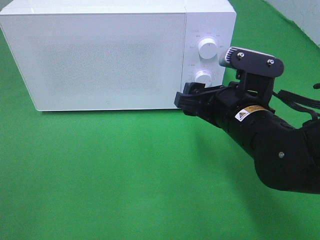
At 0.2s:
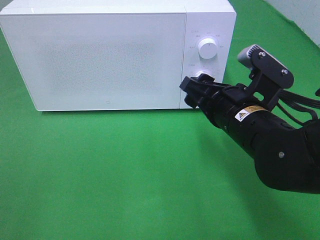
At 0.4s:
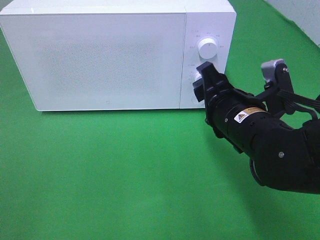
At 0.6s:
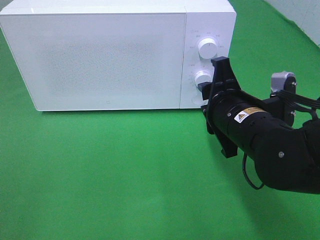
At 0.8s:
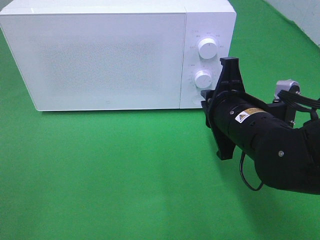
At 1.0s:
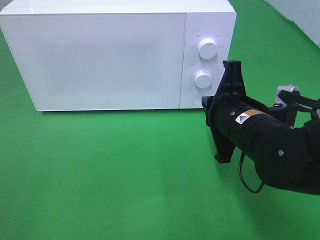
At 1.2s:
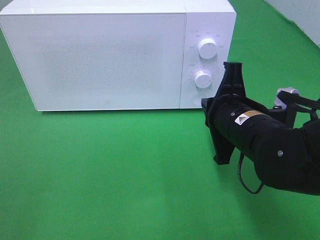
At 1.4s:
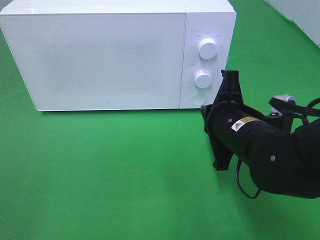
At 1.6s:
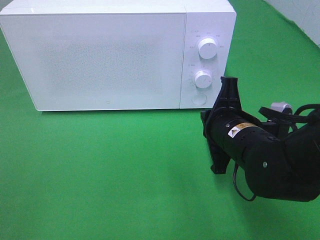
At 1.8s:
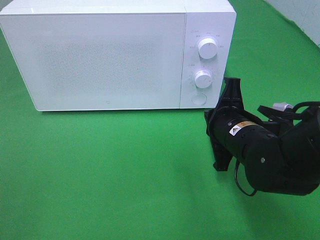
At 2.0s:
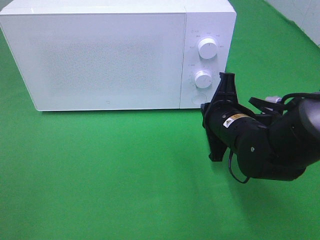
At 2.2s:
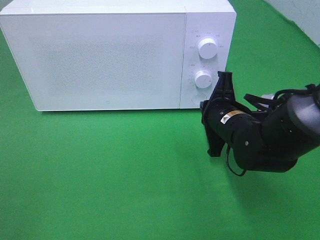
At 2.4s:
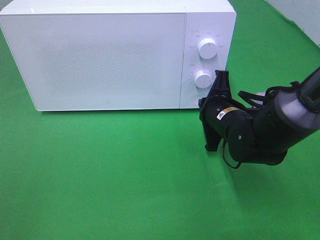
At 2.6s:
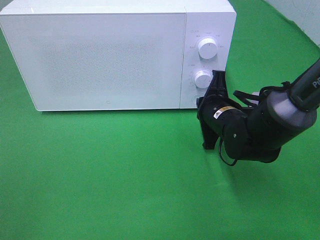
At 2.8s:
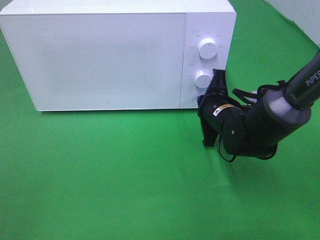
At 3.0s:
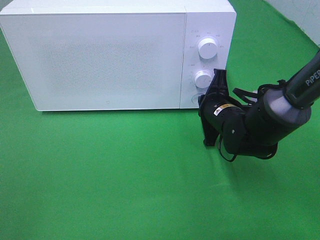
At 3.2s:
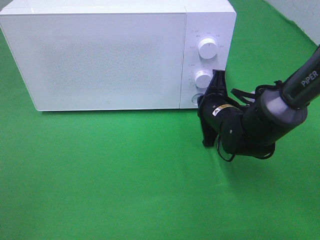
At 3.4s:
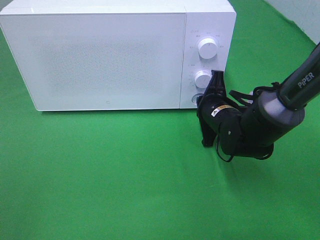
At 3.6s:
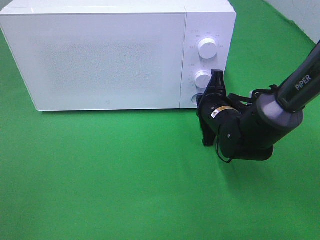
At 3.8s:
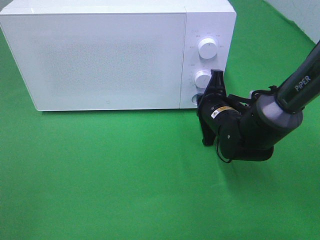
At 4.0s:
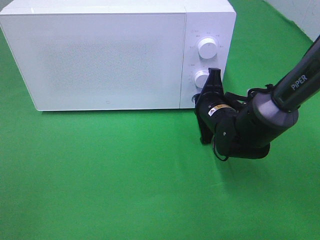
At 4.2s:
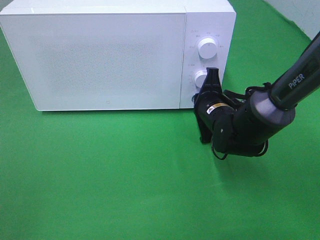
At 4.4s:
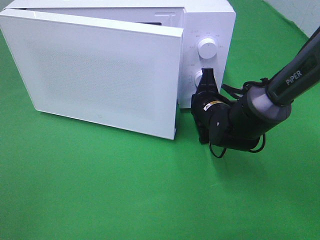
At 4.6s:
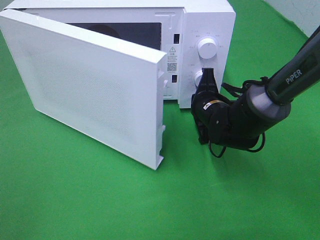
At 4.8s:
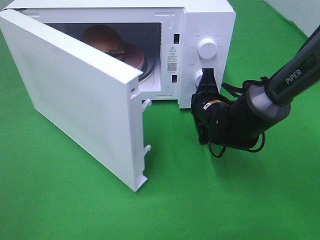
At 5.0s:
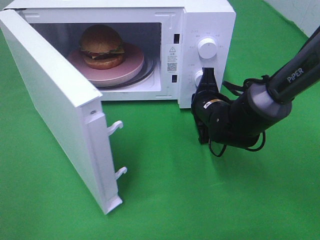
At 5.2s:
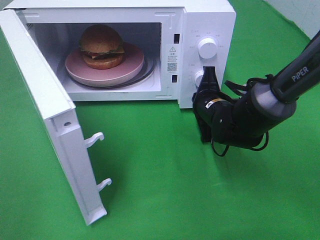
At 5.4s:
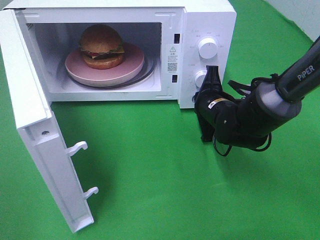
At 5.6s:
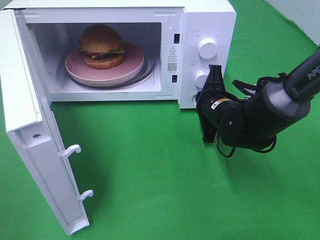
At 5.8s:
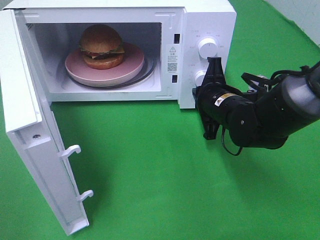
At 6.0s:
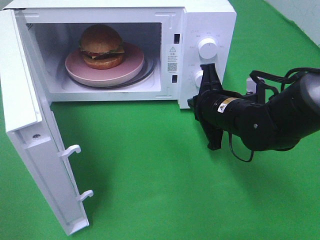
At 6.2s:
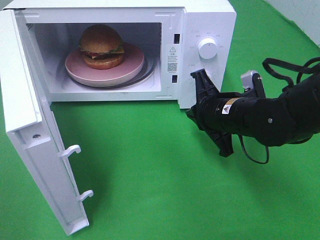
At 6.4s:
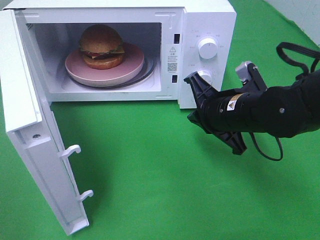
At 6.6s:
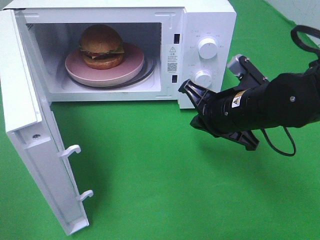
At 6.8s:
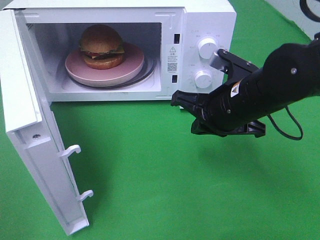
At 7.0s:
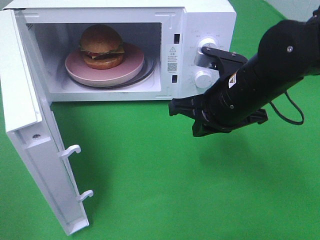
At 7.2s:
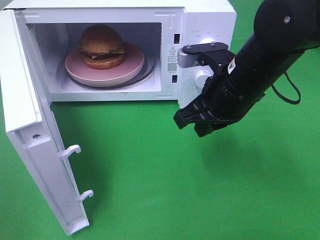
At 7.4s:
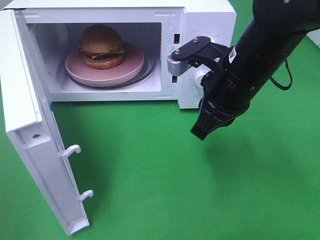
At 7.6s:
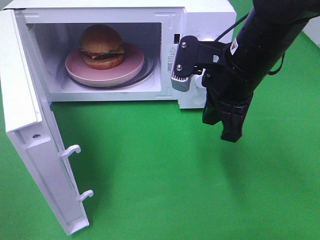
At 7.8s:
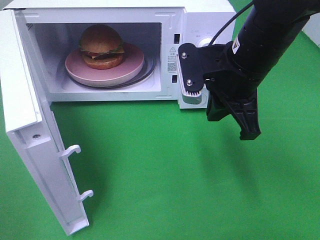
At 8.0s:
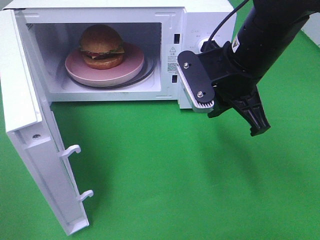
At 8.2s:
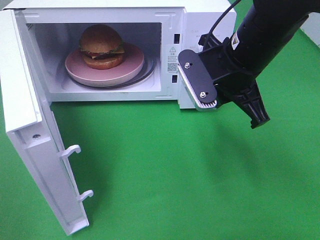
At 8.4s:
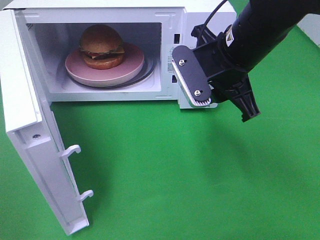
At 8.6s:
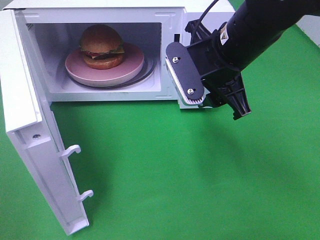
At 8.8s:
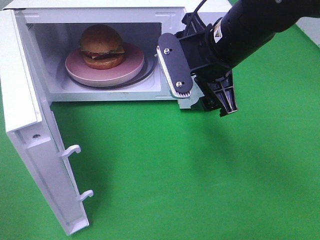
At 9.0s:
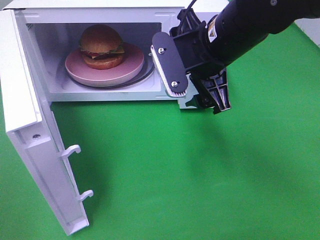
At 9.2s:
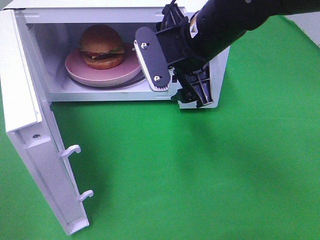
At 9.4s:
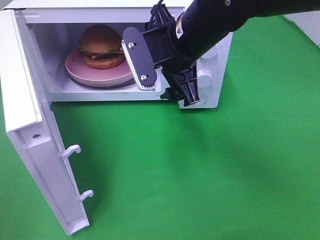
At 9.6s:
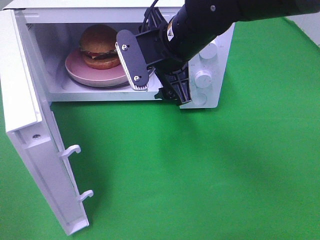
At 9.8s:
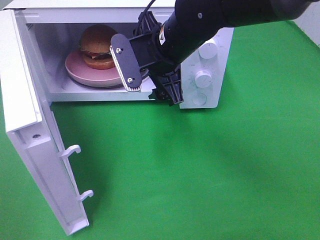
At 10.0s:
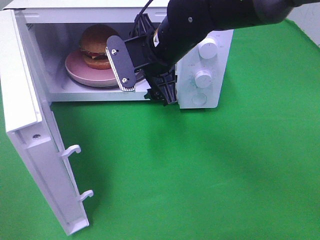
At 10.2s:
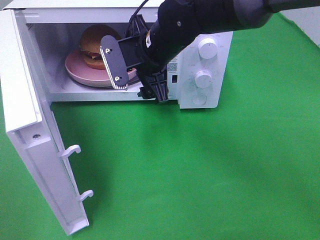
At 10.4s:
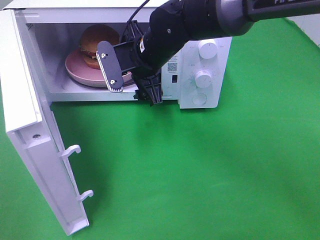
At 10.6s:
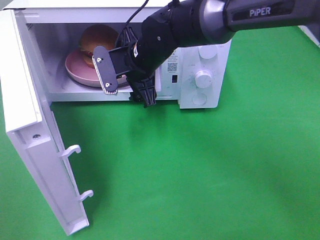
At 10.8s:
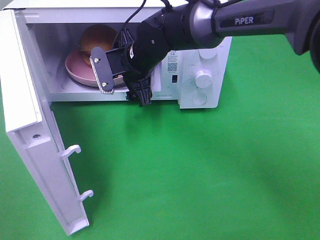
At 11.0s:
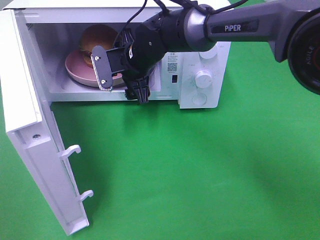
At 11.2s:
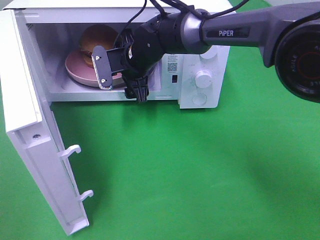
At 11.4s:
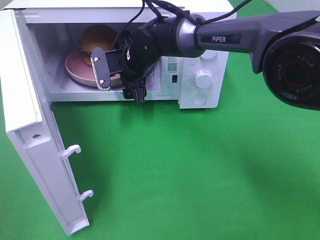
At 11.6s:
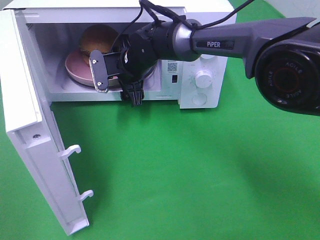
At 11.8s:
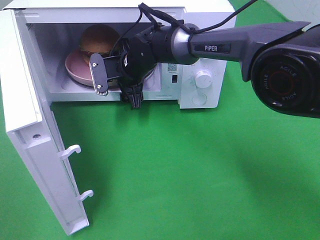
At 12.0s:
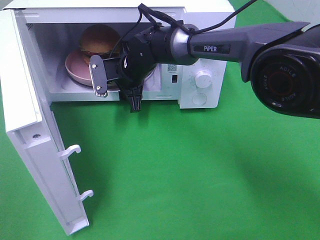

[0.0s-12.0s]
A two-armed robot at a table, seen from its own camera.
Task of the whole recording: Heat the burger.
Step, 0.0s to 6.0s: Right hand: press the switch.
0.0s to 1.6s: The right gripper closes up.
1.6s to 3.0s: The right gripper heads forward, covering roughly 10 cm.
3.0s to 4.4s: The grippers stay close to where they were, moving slightly.
4.4s to 6.0s: The right gripper goes about 5 cm backward.
6.0s to 7.6s: The right gripper goes roughly 10 cm upward.
7.6s to 9.0s: The right gripper opens its fingers.
9.0s to 10.4s: The right gripper goes roughly 15 cm to the left, forward and downward.
10.4s to 12.0s: The right gripper moves downward and forward, roughly 10 cm, and closes up.

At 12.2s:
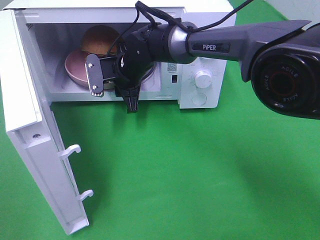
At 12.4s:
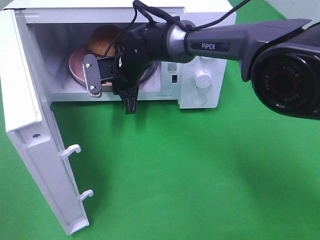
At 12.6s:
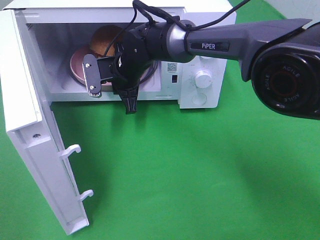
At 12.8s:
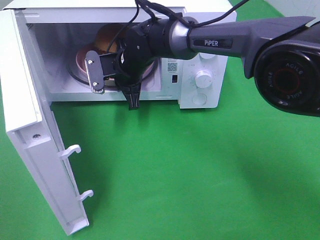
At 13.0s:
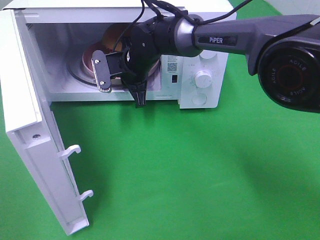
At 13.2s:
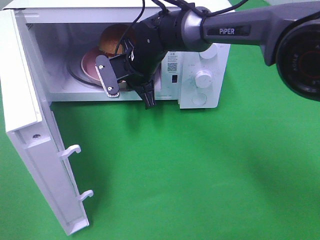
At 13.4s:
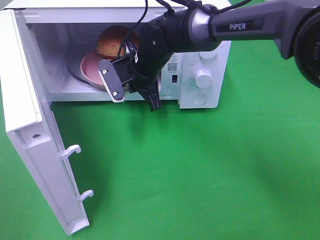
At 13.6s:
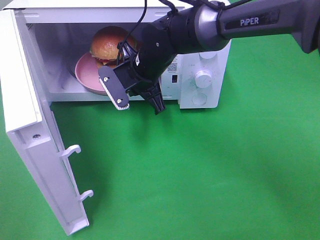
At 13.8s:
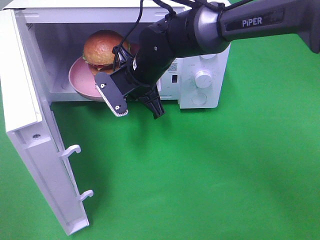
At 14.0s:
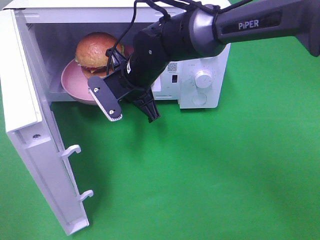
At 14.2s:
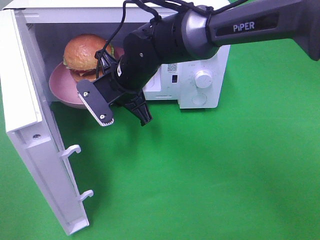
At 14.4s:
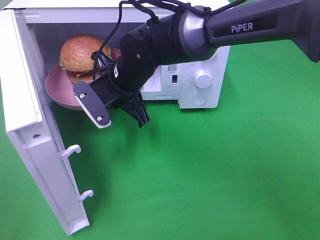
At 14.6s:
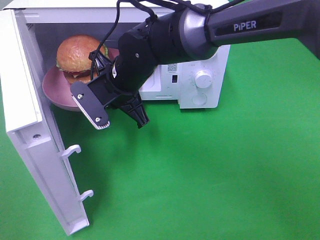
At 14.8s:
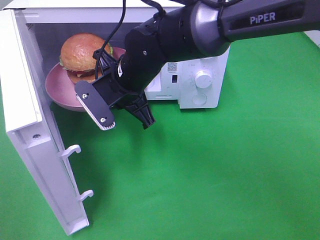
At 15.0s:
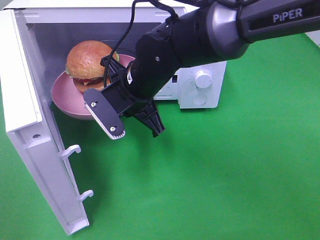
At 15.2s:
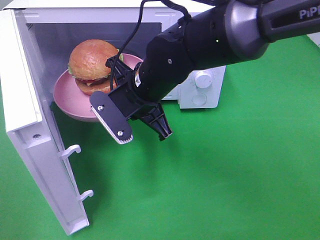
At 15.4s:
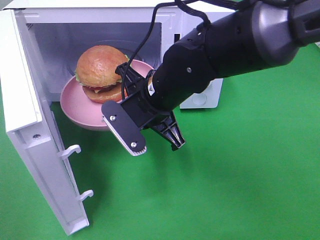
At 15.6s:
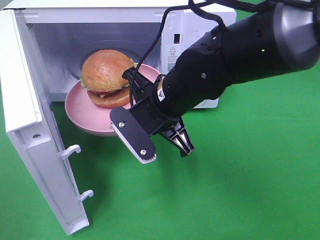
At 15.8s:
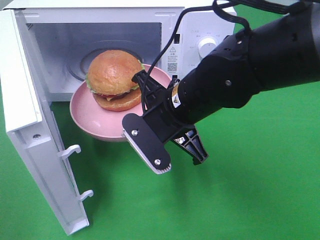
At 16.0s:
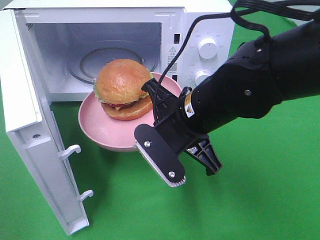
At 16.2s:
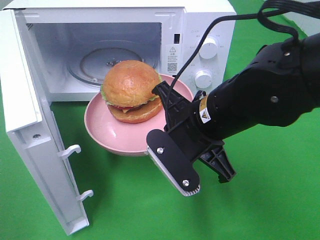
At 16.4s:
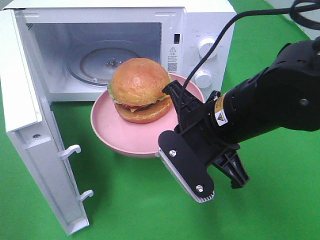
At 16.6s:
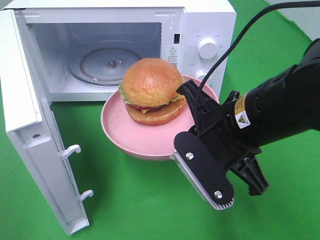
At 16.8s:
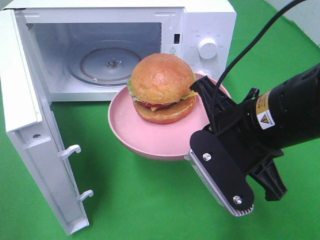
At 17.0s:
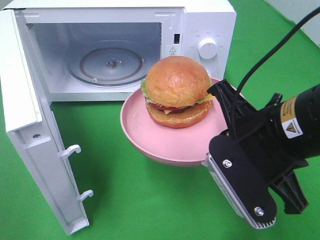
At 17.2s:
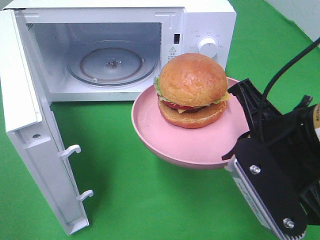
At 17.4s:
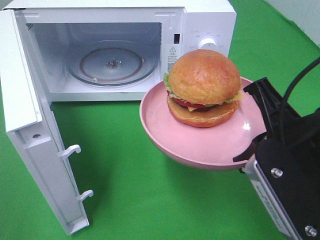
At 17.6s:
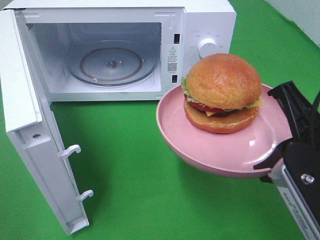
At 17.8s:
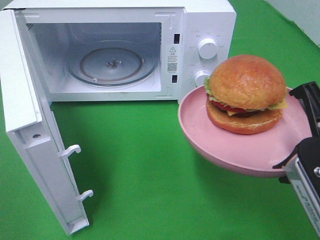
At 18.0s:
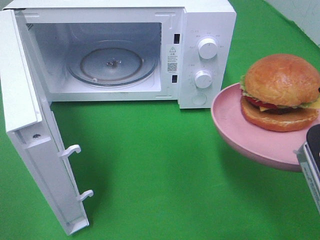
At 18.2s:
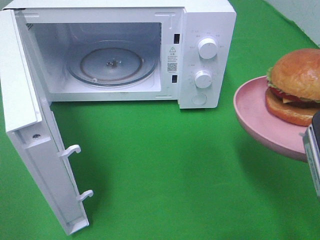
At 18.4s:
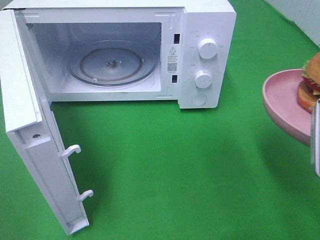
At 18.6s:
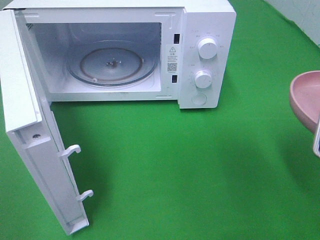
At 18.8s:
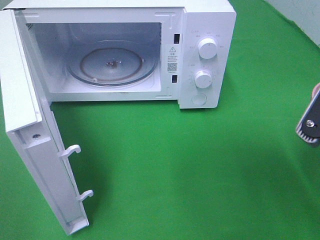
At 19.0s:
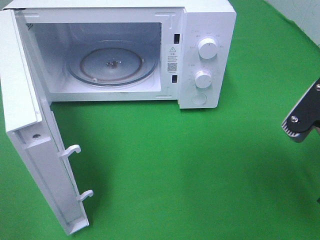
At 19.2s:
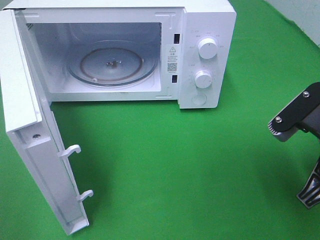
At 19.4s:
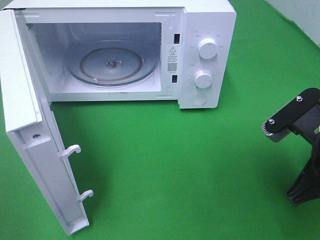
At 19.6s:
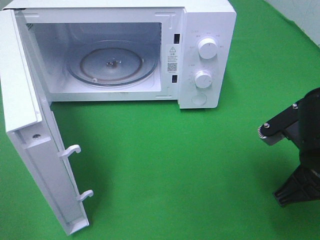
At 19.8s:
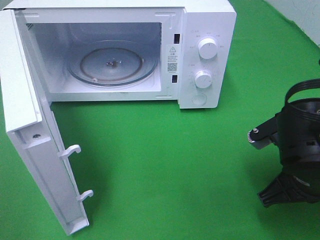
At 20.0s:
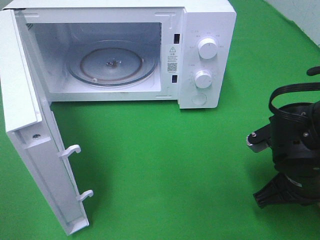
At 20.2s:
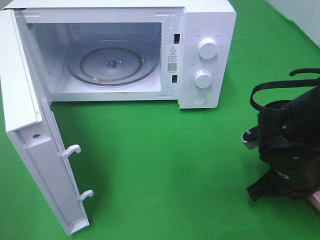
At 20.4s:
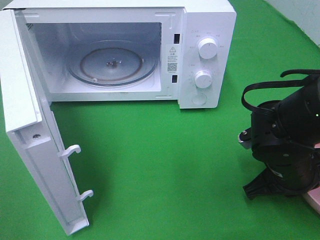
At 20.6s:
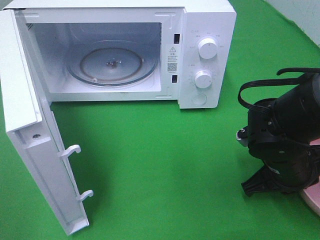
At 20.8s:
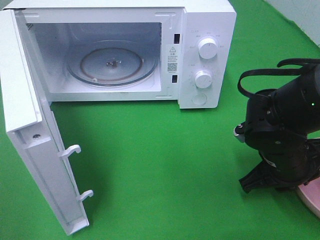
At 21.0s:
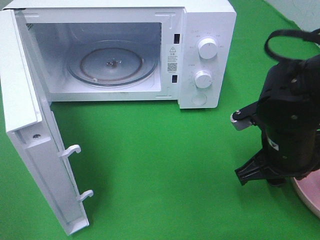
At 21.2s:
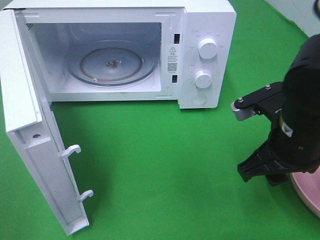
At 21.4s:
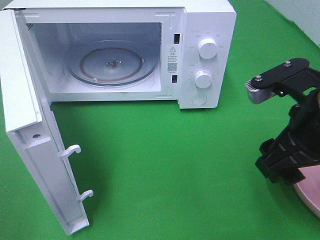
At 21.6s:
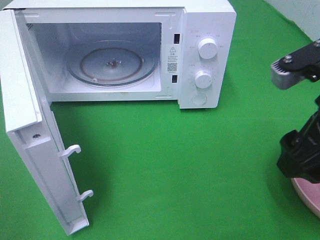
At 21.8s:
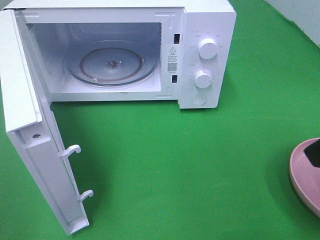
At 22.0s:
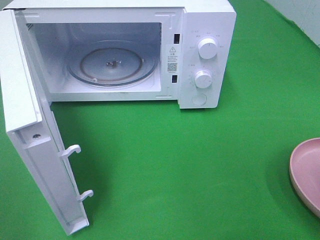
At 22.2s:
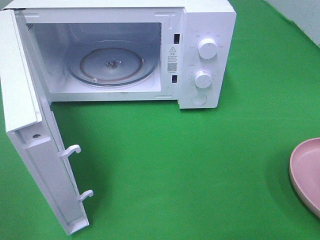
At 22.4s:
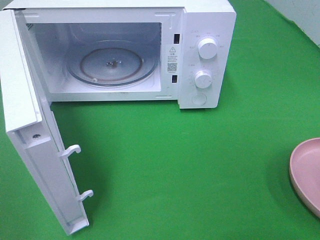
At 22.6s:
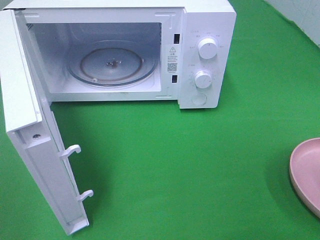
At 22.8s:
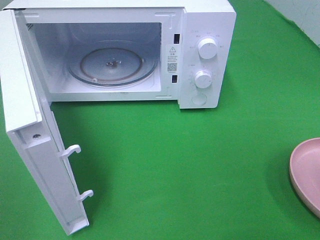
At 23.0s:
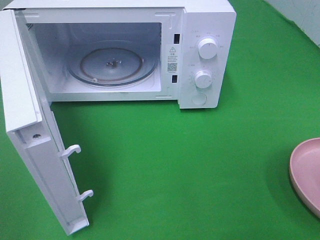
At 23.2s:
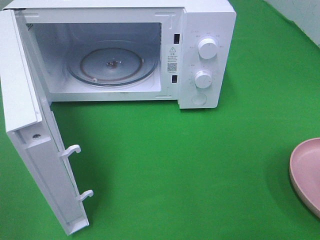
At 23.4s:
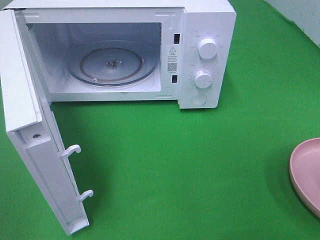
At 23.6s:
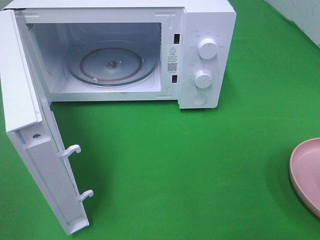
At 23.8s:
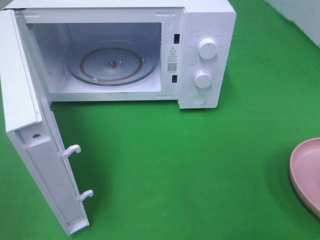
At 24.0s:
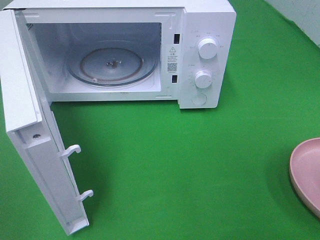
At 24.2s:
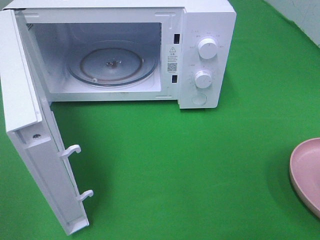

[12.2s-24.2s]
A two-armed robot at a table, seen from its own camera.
Task of the whole recording: Heat the burger.
Step, 13.0s to 21.6s: Right hand: place the plate on the table.
12.2s to 13.8s: The right gripper is displaced backward by roughly 5 cm.
13.8s to 15.2s: The right gripper goes roughly 5 cm backward.
15.2s to 16.6s: The right gripper shifts about 15 cm to the right and backward.
16.6s to 18.2s: The right gripper moves to the right and backward, roughly 15 cm.
18.2s to 19.8s: The right gripper travels downward and forward by about 15 cm.
19.8s to 21.2s: The right gripper goes about 5 cm upward, and opens up.
21.2s to 22.6s: The right gripper travels backward, to the right and upward by roughly 25 cm.
